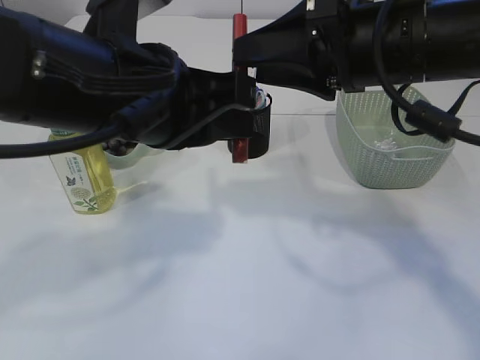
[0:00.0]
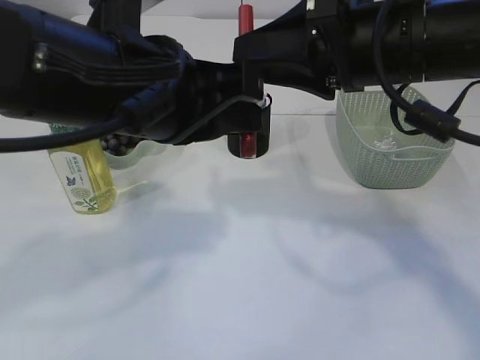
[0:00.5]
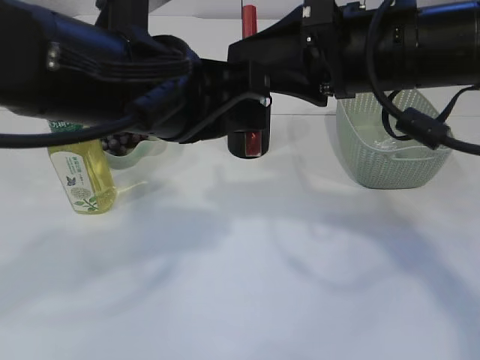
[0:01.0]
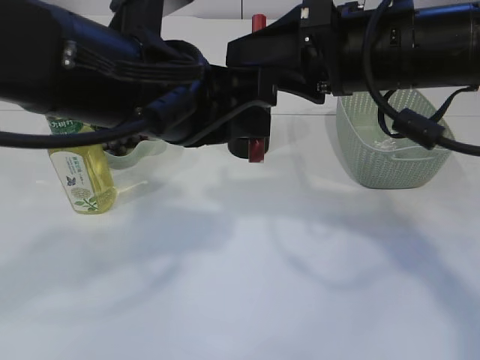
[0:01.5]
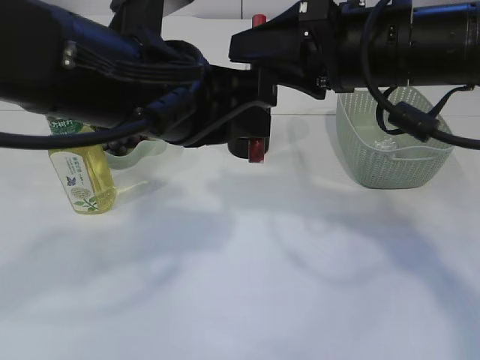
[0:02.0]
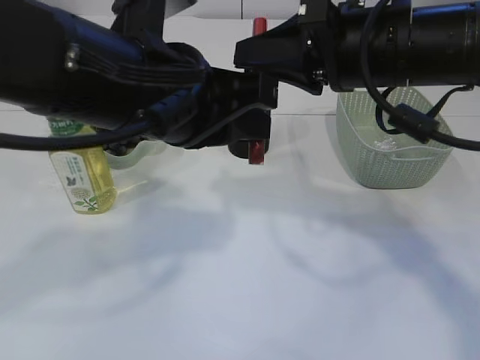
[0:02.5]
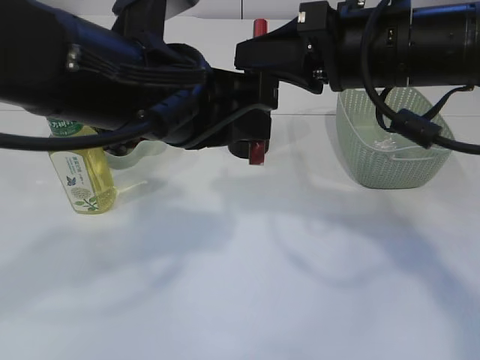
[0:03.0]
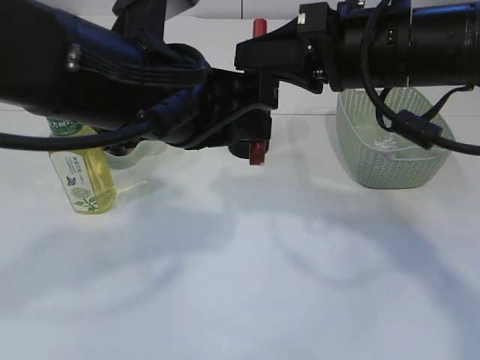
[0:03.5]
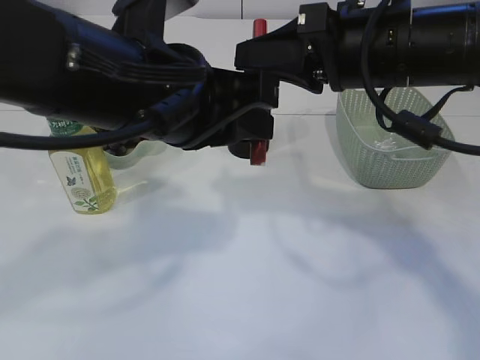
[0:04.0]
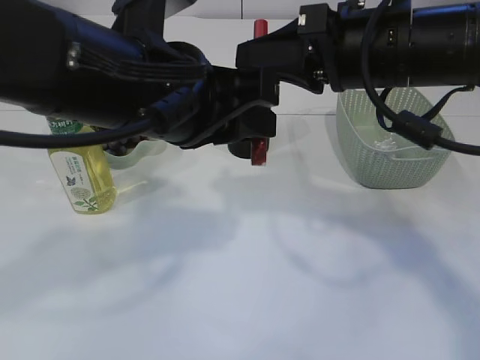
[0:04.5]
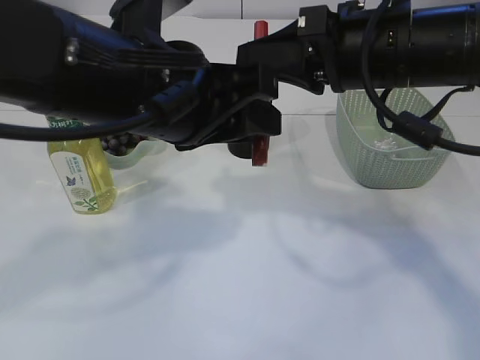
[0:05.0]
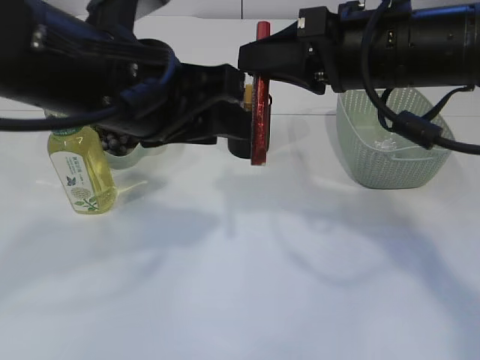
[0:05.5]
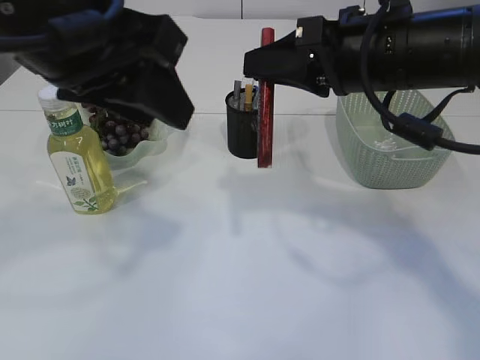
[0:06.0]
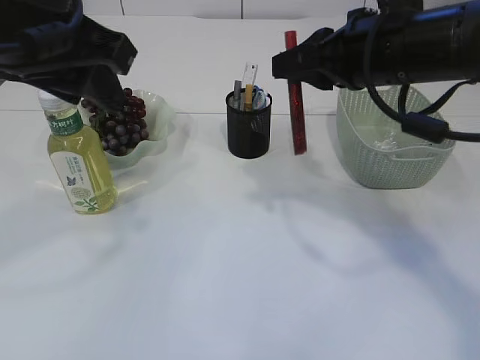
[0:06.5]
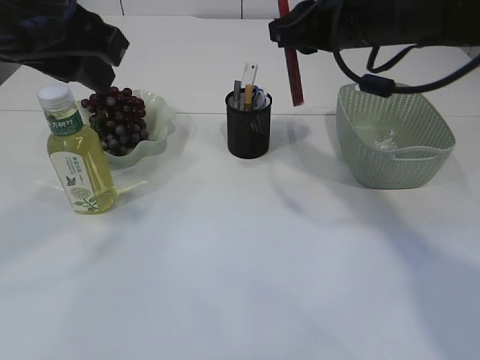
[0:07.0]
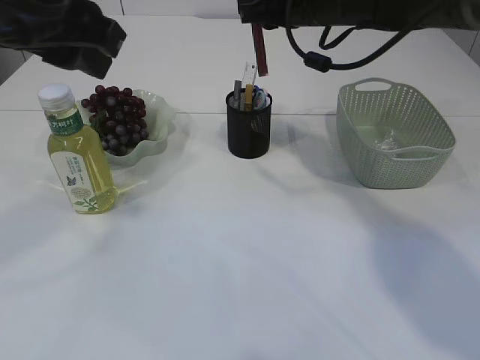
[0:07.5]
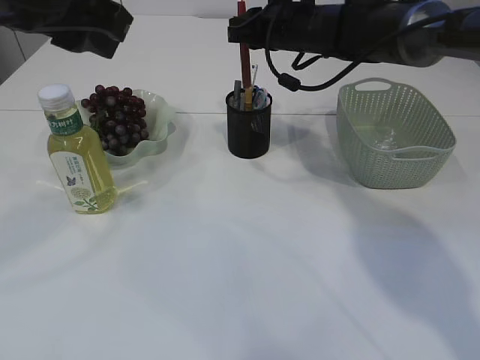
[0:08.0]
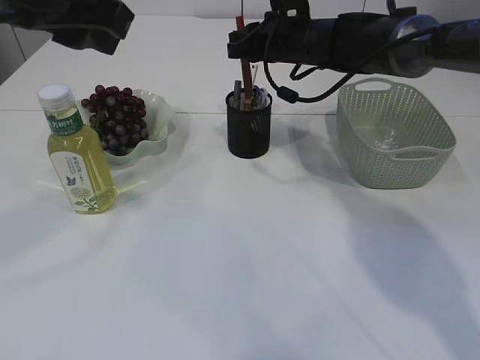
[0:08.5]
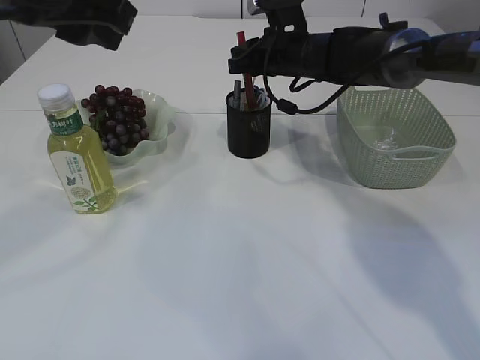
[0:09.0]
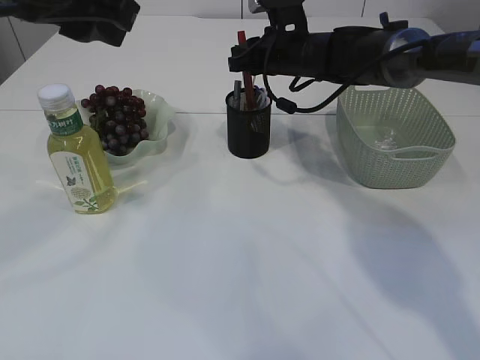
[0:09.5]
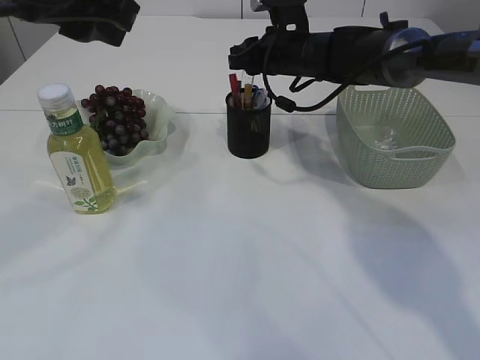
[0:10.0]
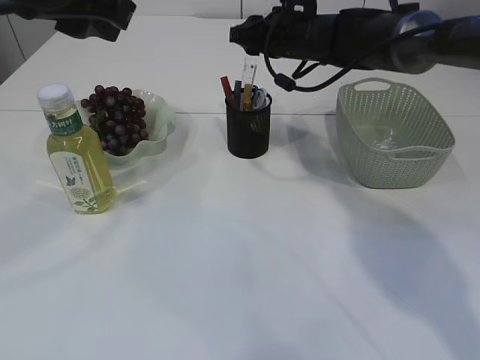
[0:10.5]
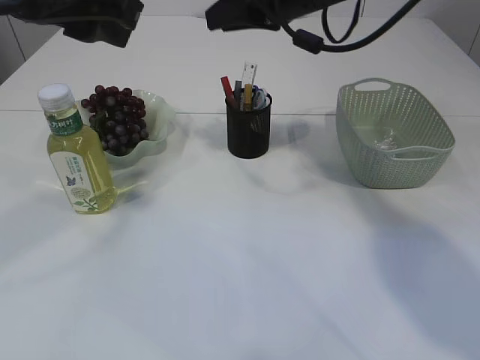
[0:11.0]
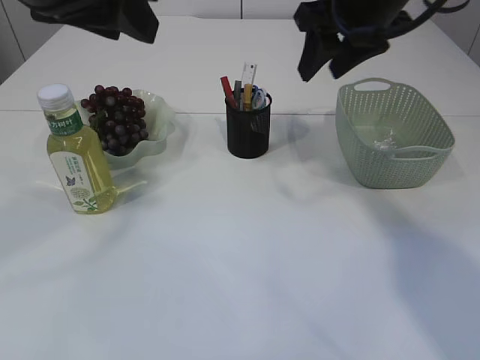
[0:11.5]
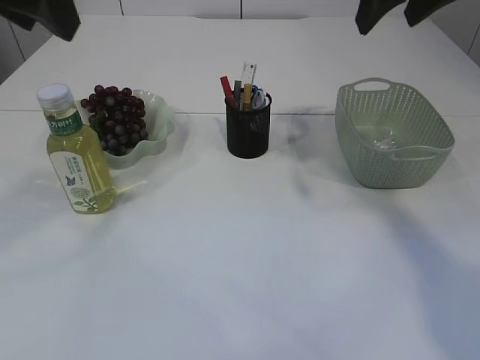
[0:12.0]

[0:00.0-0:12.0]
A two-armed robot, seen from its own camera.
Step, 0:00.0 to 0:05.5: Hand over the red glue.
Step, 0:06.0 to 0:10.0: place the red glue into the pen holder.
0:00.0 to 0:02.0: The grippers move only a little.
0:02.0 to 0:04.0: The right gripper closes.
0:04.0 to 0:06.0: The left gripper heads upward, covering some 5 cm, and opens up.
0:06.0 to 0:08.0: The right gripper travels forward by about 20 cm.
0:08.0 to 0:10.0: The grippers make only small movements.
0:10.0 to 0:12.0: The right gripper travels upward, backward and to the right by about 25 cm, and opens its fingers.

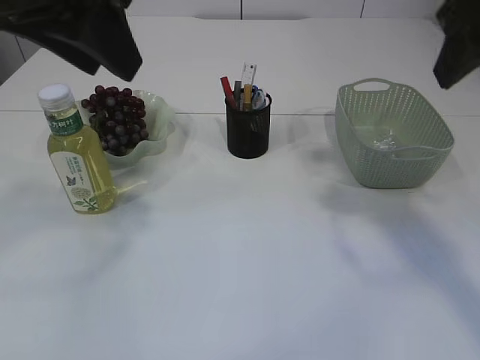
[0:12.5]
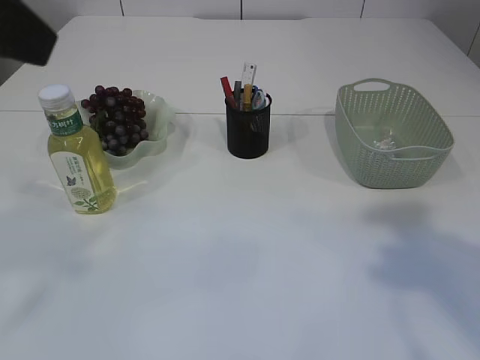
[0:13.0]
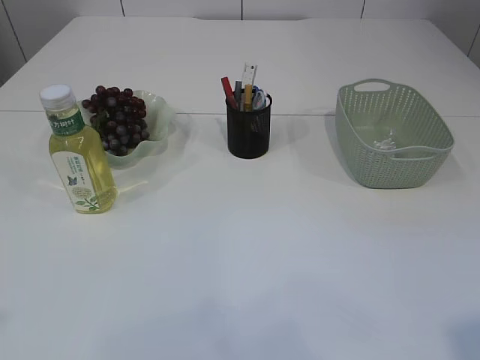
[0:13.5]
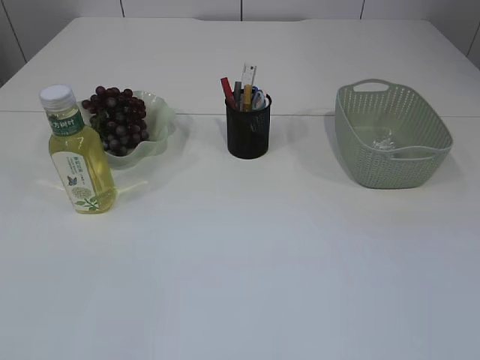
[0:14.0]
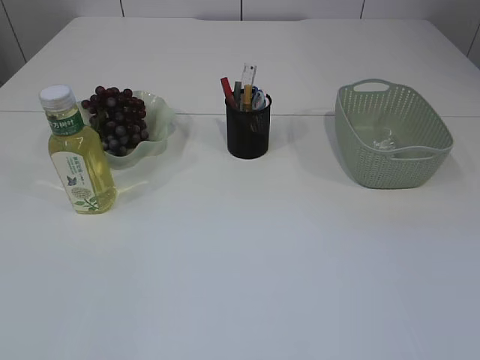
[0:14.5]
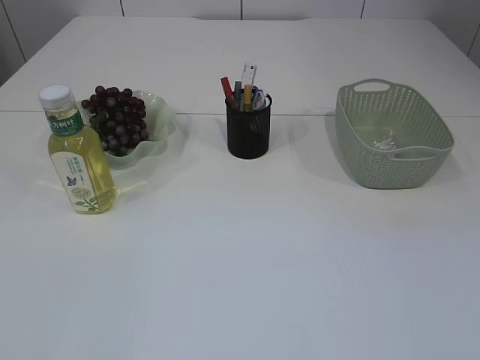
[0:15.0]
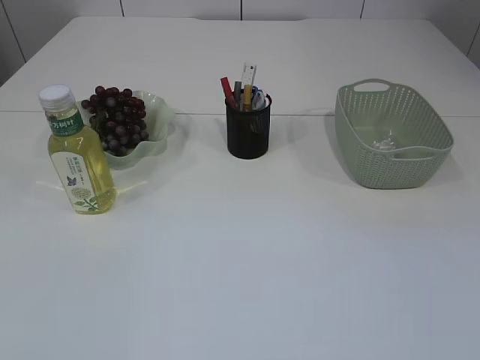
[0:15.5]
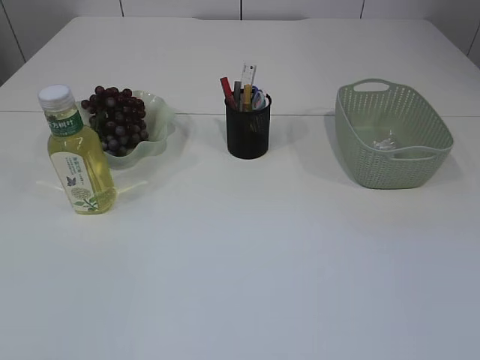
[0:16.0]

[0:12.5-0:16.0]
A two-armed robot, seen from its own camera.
0:12.5 to 0:14.5: The left gripper goes approximately 35 cm backward, to the left and downward. Meanwhile the right gripper travels backward by about 30 cm.

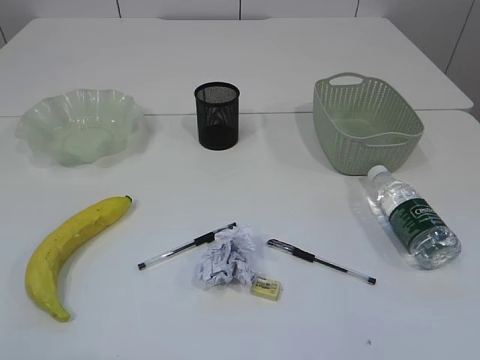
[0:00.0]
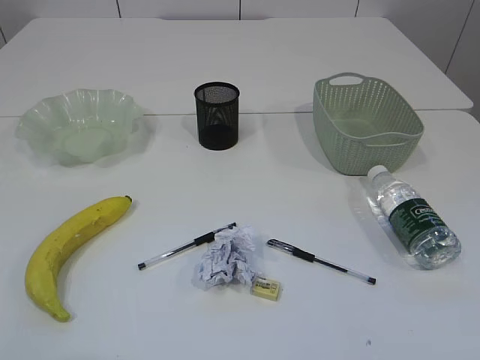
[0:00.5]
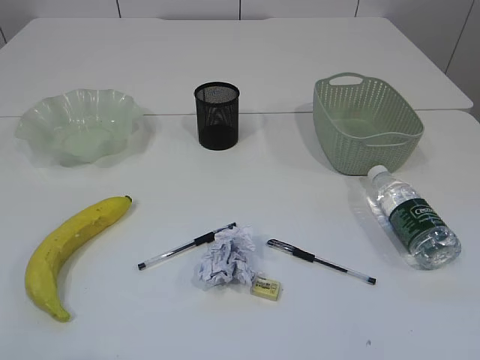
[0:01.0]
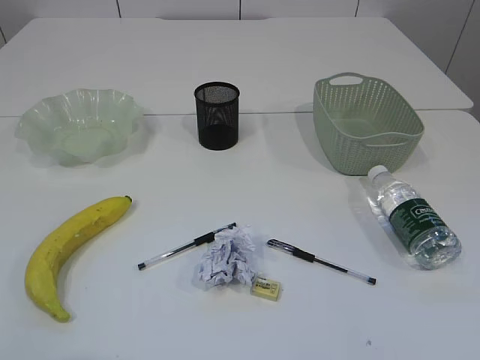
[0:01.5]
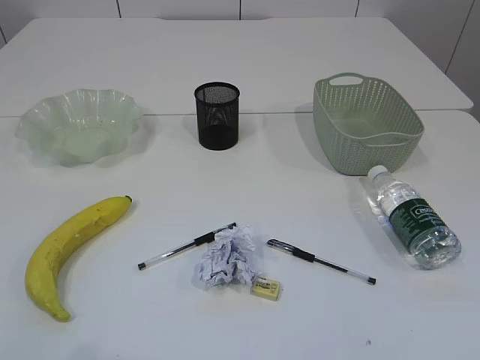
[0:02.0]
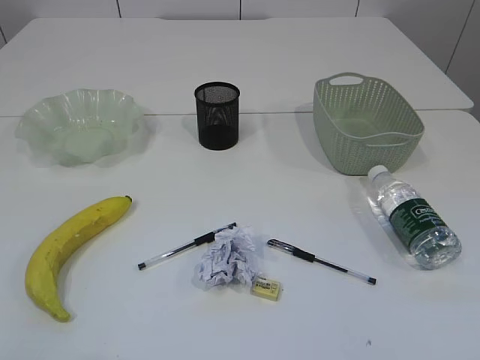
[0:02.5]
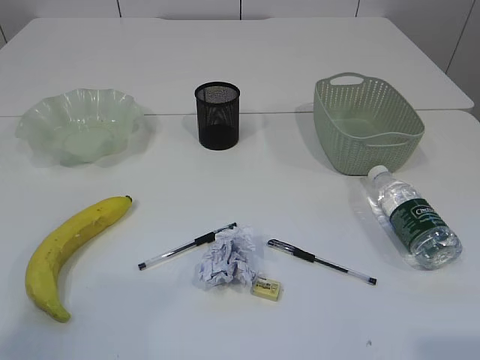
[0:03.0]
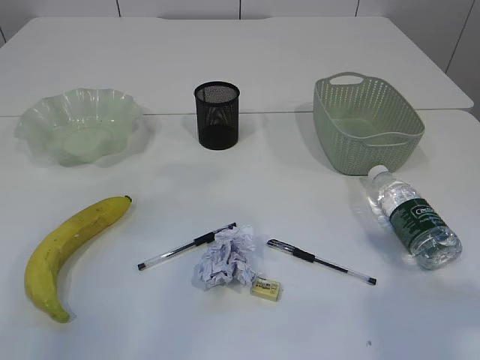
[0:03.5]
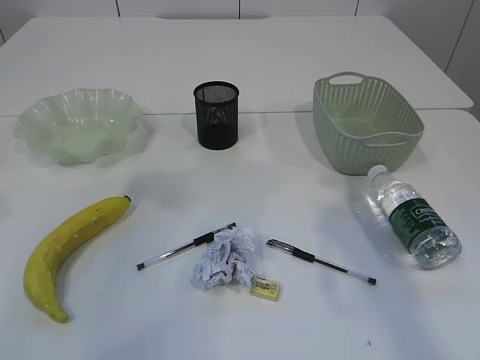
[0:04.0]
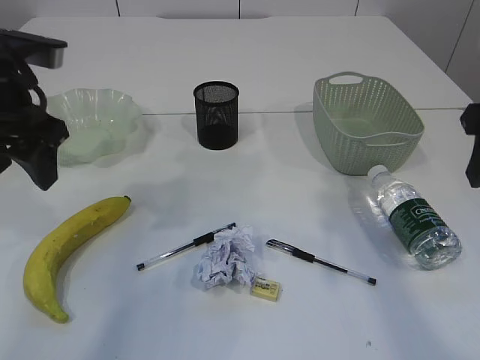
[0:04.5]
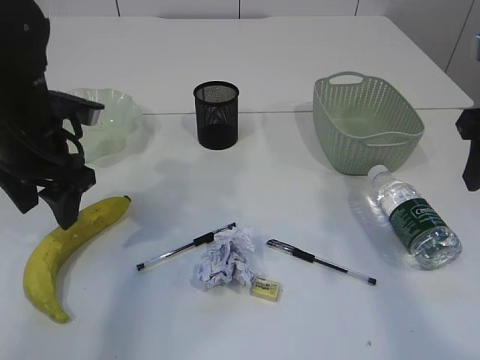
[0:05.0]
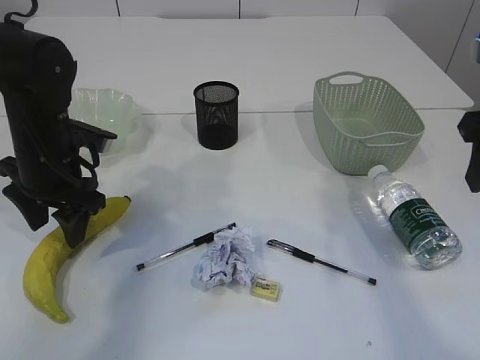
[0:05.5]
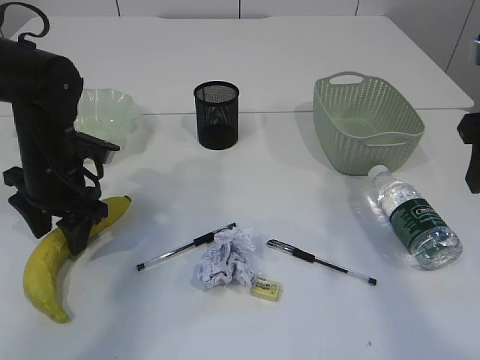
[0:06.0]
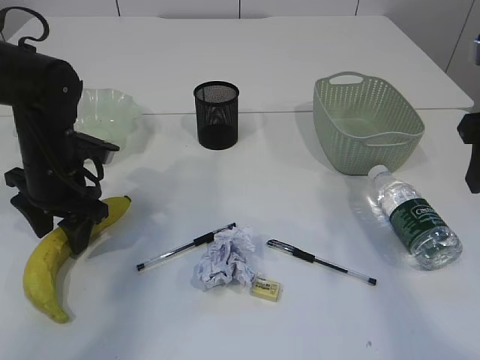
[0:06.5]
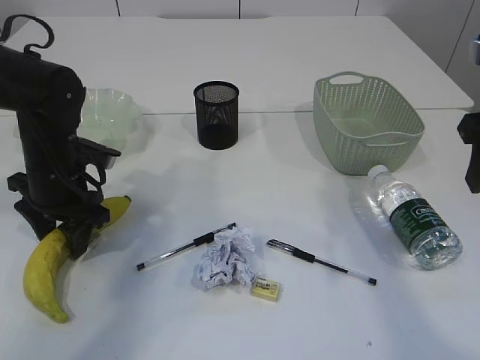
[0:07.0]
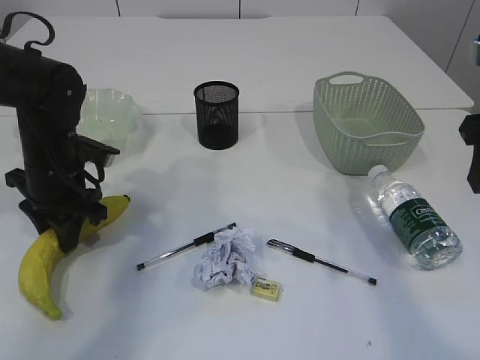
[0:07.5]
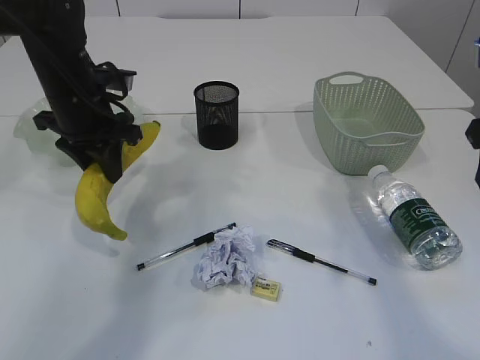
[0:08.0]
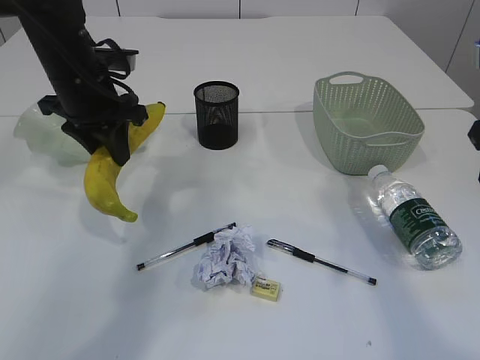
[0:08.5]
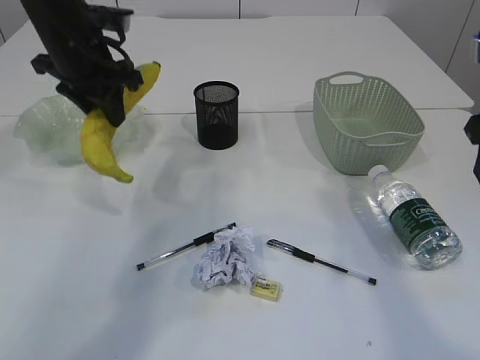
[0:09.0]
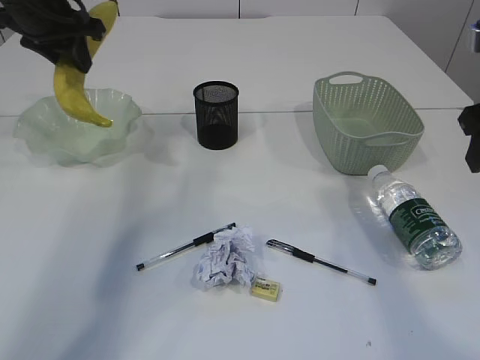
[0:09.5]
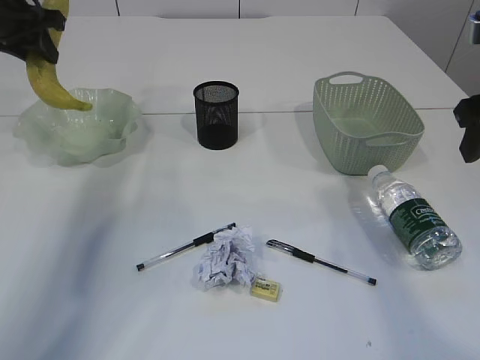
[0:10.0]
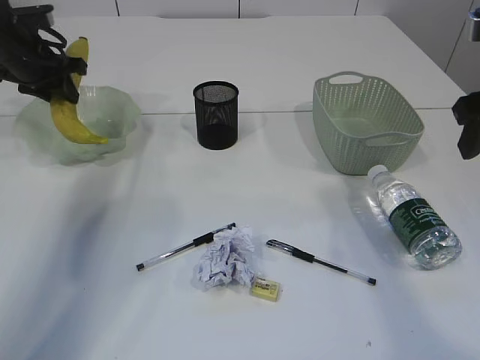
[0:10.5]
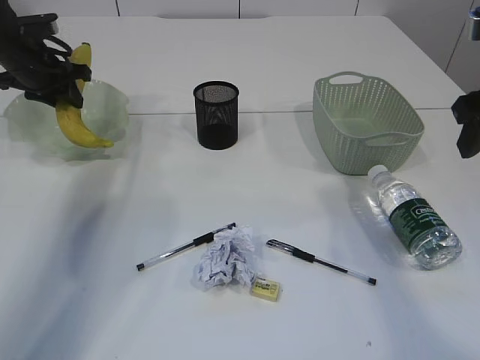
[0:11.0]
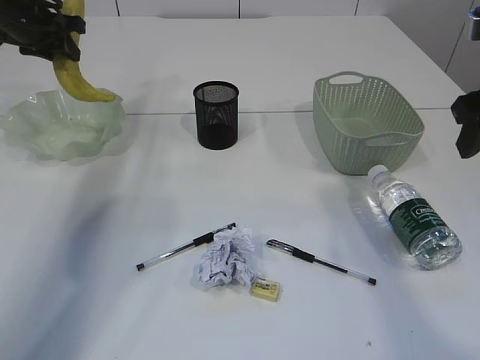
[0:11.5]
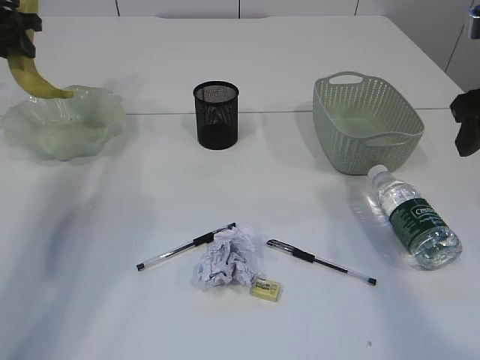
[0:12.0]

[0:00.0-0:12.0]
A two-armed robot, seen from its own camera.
0:02.0 to 0:04.0: The two grippers go some 25 cm forward. The left gripper opens up; the right gripper opens its fingers.
0:04.0 to 0:06.0: The left gripper heads downward and forward, covering about 25 cm. The right gripper shifts about 5 cm downward.
0:06.0 to 0:08.0: The left gripper travels upward by some 5 cm, and closes its fingers.
0:08.0 to 0:10.0: The left gripper is displaced to the left, upward and forward by roughly 15 cm.
0:10.0 to 0:12.0: The left gripper goes some 5 cm to the left, and moves some 10 cm downward and comes back.
